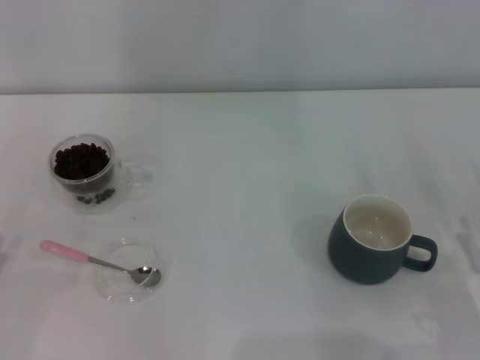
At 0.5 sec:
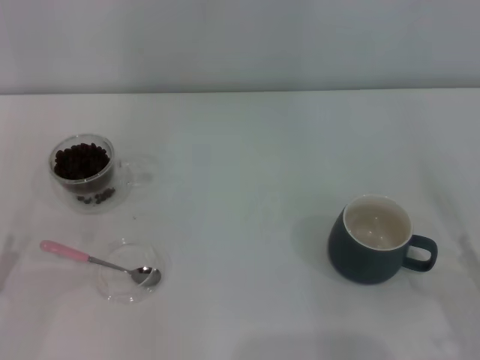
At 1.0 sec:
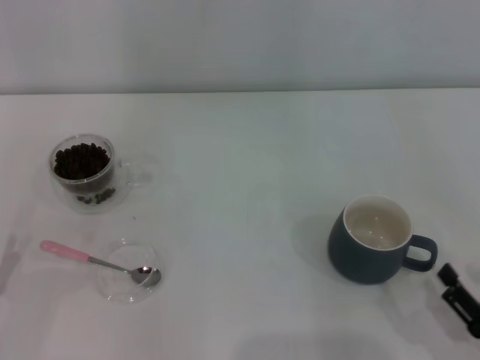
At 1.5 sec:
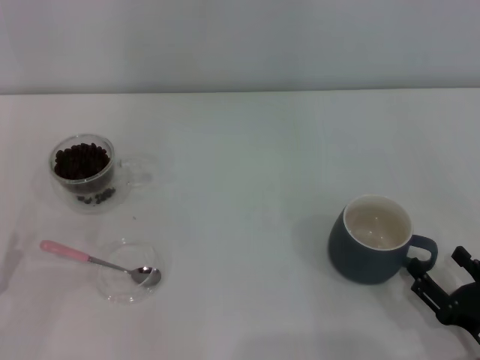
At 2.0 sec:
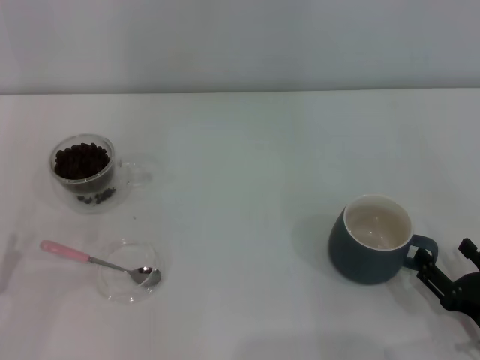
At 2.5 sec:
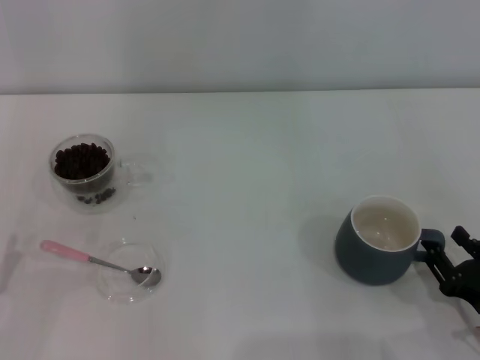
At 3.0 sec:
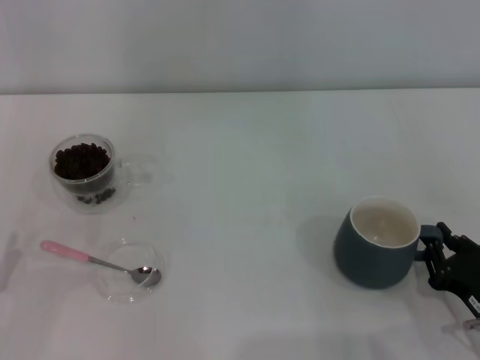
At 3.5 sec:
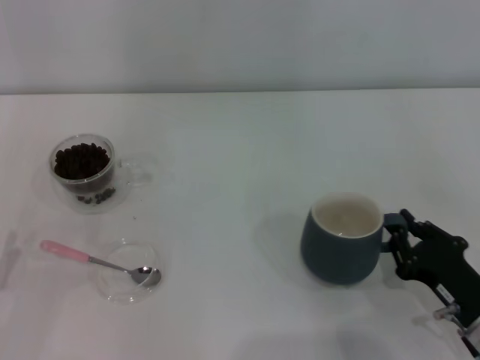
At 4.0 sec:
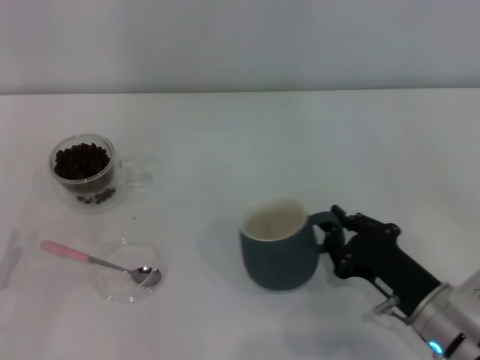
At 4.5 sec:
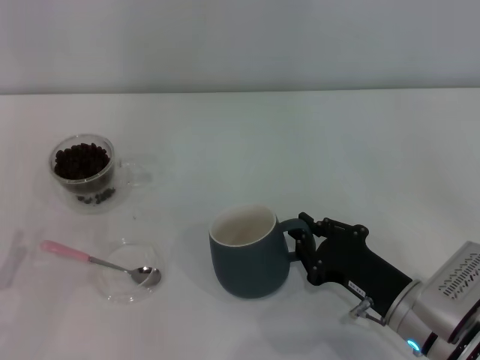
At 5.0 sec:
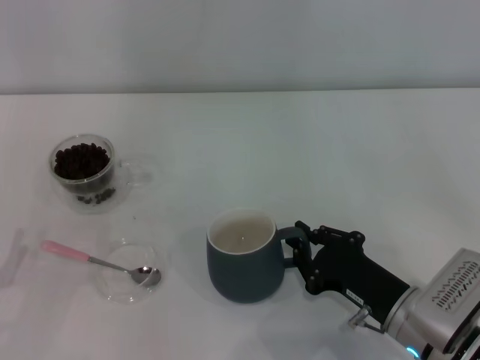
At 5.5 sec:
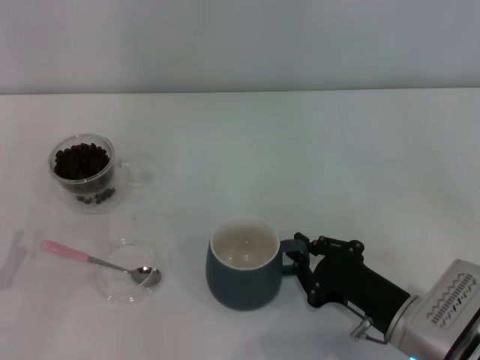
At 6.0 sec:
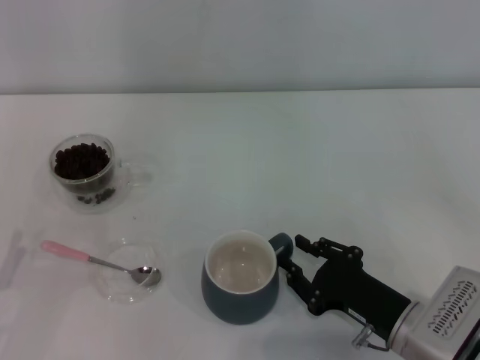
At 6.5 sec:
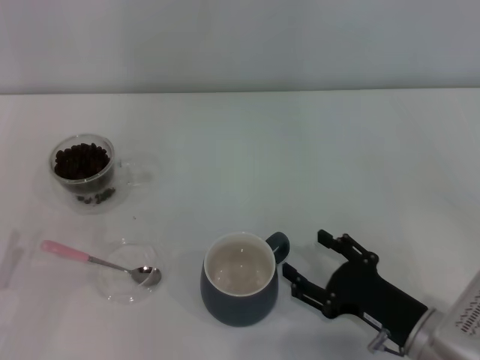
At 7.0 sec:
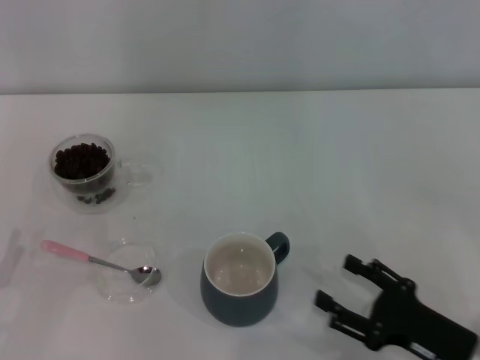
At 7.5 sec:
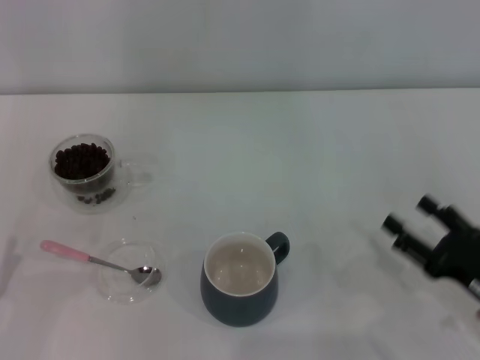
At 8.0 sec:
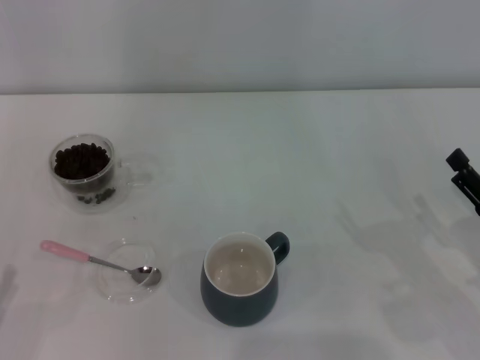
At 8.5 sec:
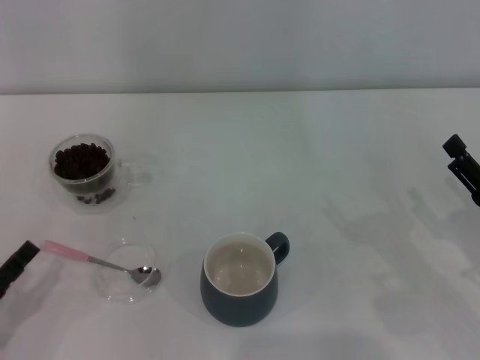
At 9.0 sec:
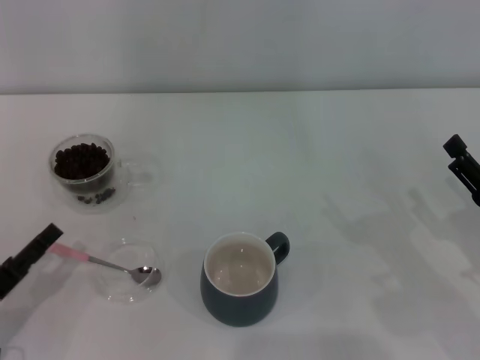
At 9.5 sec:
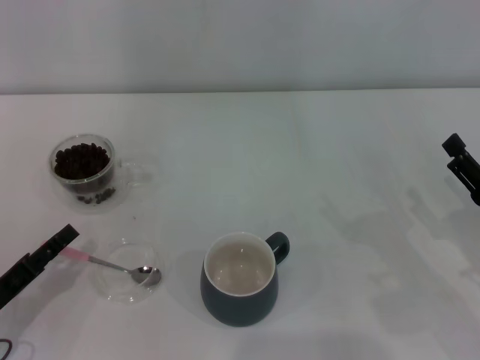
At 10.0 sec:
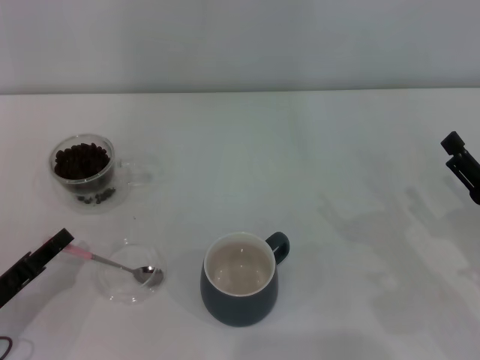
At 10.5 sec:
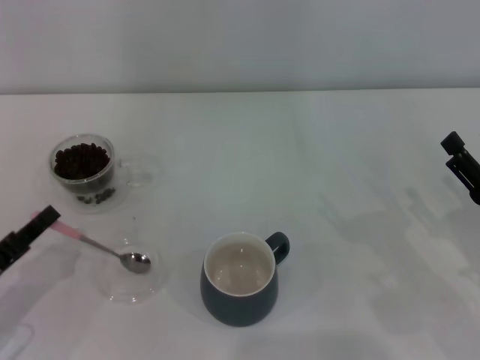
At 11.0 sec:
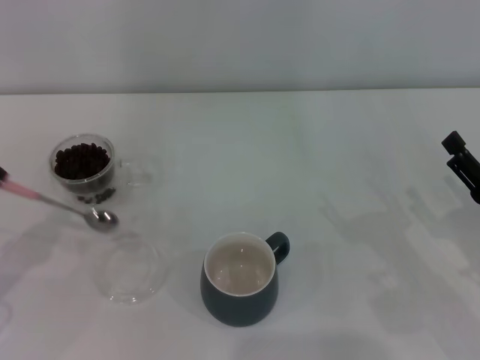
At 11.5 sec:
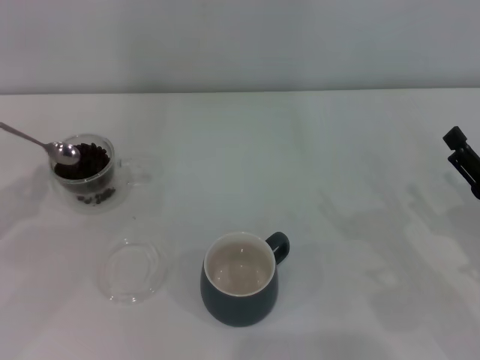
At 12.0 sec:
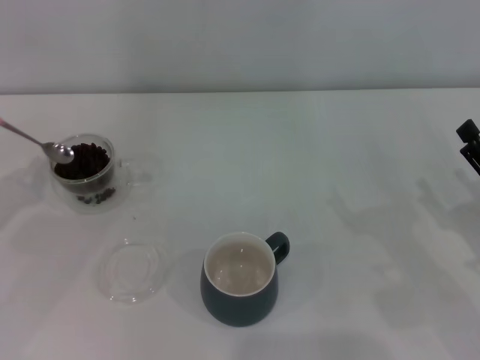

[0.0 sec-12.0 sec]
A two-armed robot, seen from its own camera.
Task of the whole recording: Use a pink spoon to take out the coffee beans from the glass and pour them into the gray cup.
Step, 7.0 sec to 10.5 sec: Pick up the spoon with the right gripper.
2.0 sec to 4.0 sec: The right gripper shifts roughly 10 cm to the left and forward, and closes.
4.0 sec to 6.0 sec: The grippers move only a little.
6.0 sec to 8.0 sec: The right gripper travels to the right by approximately 15 cm, and opens its fingers.
8.0 sec to 10.0 sec: The left gripper shifts about 10 cm forward, and closes.
10.0 sec to 12.0 sec: The left gripper shifts about 15 cm upward, forward and to the left, and closes its fingers.

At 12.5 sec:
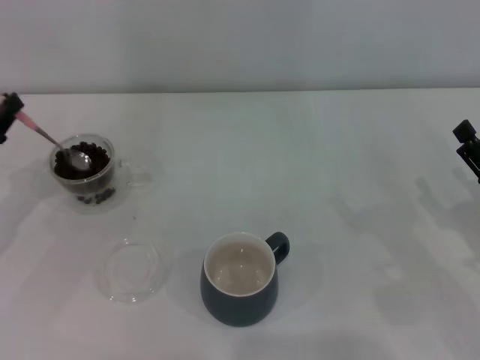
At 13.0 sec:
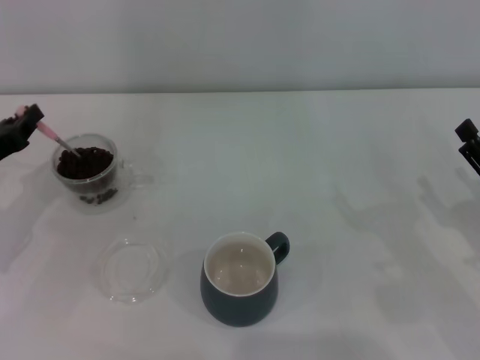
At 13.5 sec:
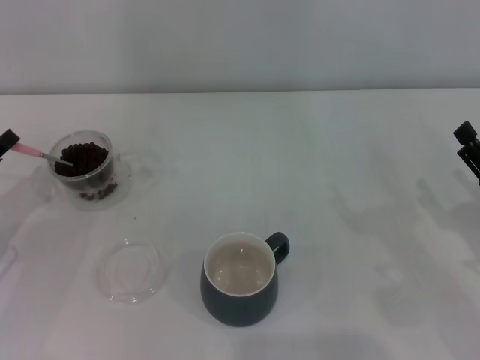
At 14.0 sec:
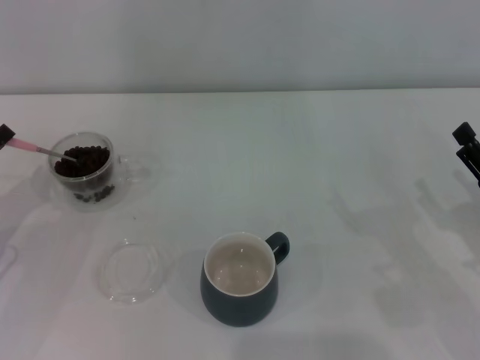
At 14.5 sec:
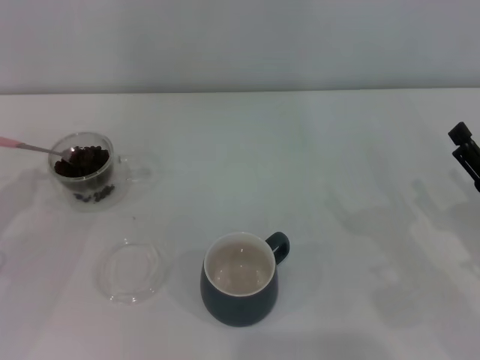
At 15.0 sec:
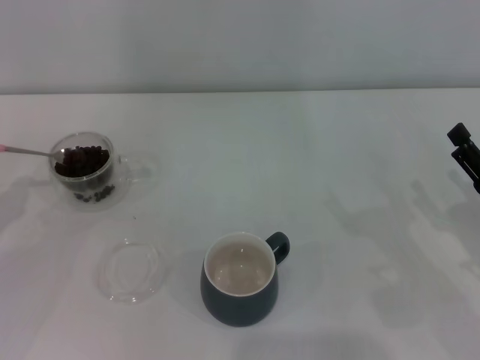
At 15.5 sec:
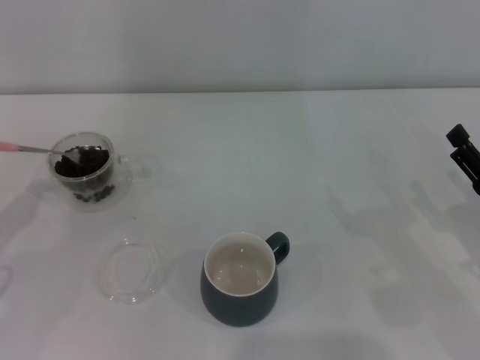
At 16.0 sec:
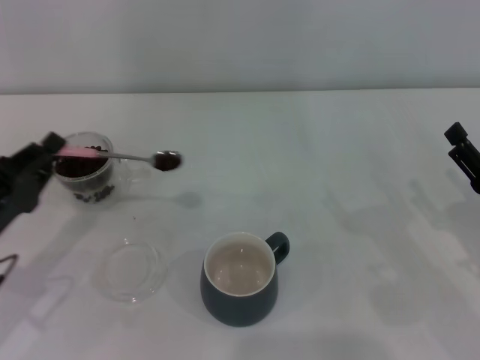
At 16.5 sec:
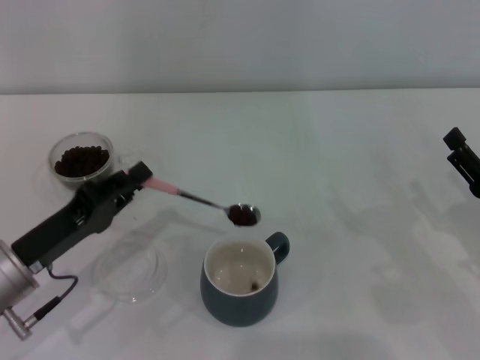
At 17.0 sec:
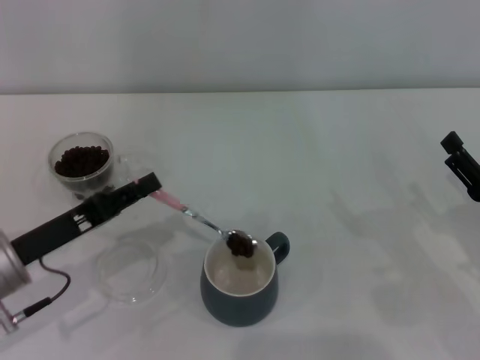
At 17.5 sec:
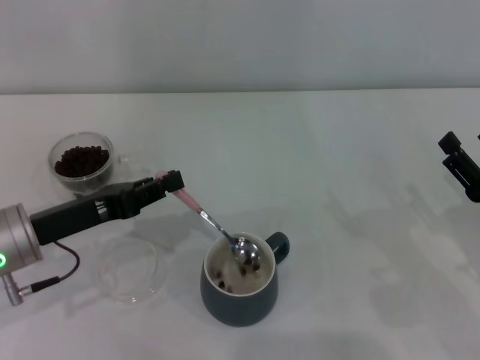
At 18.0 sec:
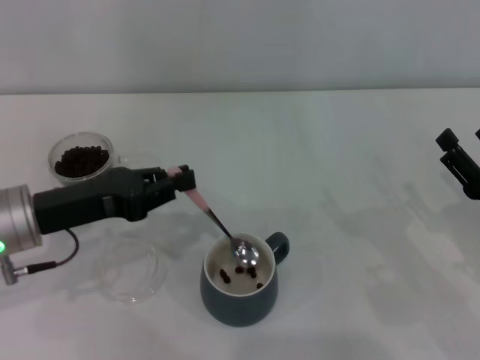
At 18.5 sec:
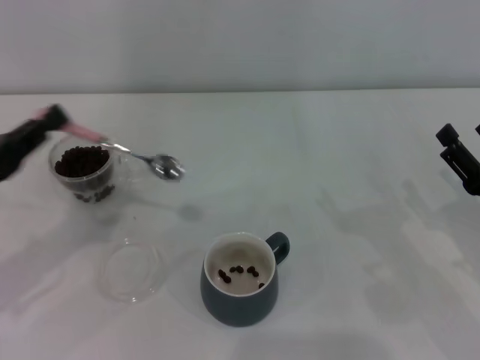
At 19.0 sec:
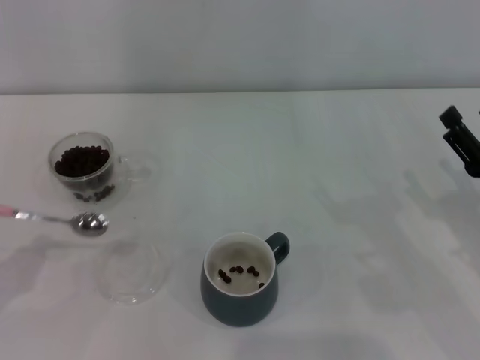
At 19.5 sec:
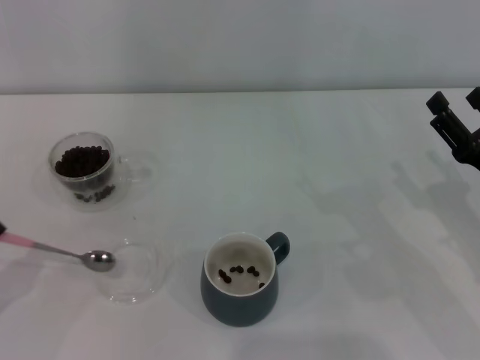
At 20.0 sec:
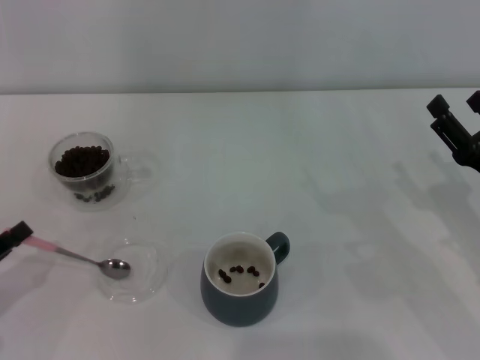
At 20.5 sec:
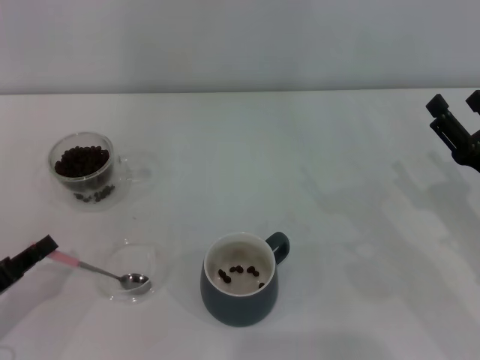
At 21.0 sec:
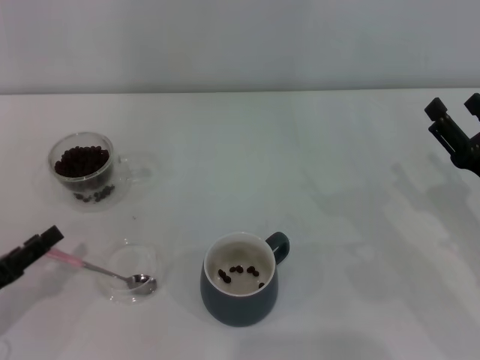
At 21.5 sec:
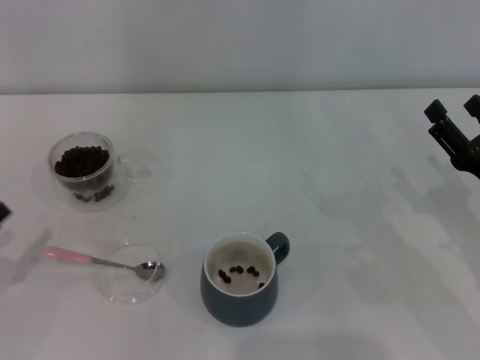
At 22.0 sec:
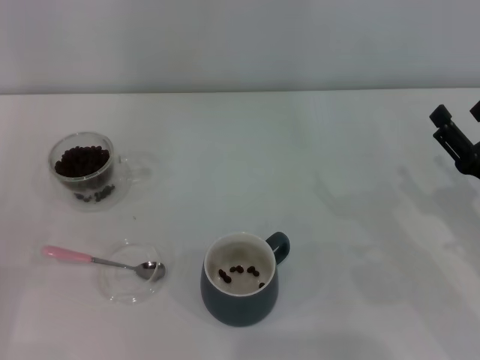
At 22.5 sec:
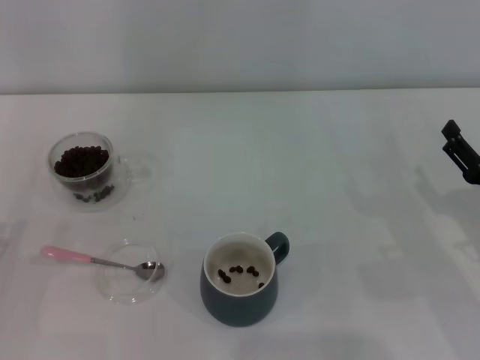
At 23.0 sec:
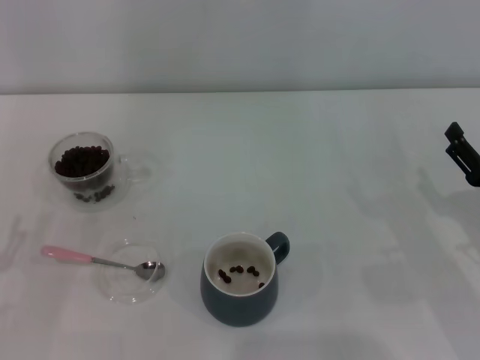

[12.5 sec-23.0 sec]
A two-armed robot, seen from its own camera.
Task of the whole recording: Use a pink spoon to take out the coffee beans from the glass and pour them into the gray cup.
Step, 18.5 sec to 21.0 sec: Place the spoon back in its original place with the right gripper.
14.5 sec to 16.5 sec: The left gripper shifts about 10 cm to the right.
16.5 sec to 19.0 sec: The left gripper moves to the left and backward, roughly 15 cm.
19.0 sec to 21.0 sec: The left gripper ends up approximately 5 cm from where it was, and opens up.
21.0 sec to 23.0 sec: The left gripper opens its fingers.

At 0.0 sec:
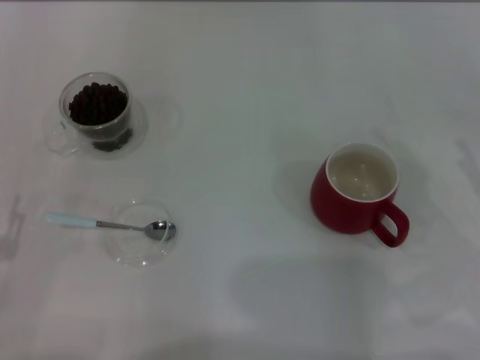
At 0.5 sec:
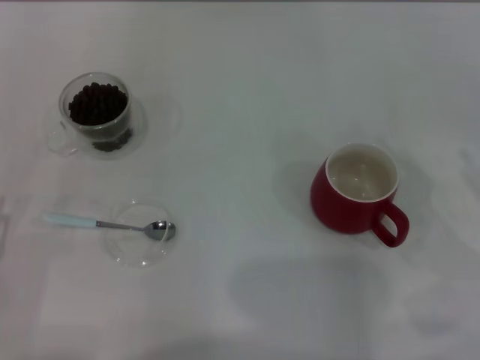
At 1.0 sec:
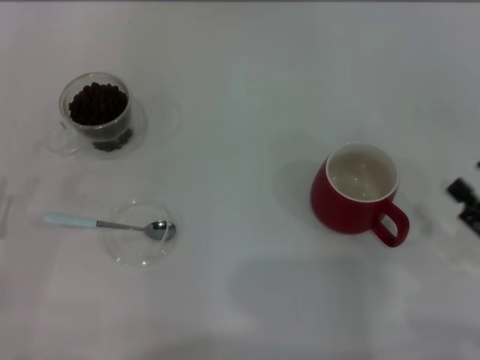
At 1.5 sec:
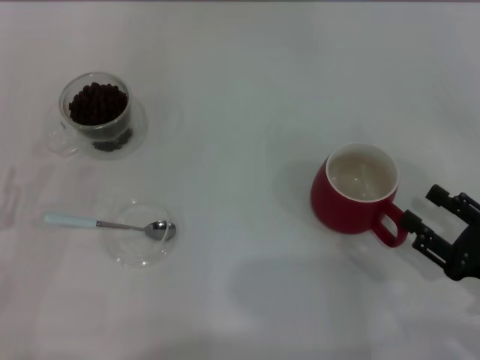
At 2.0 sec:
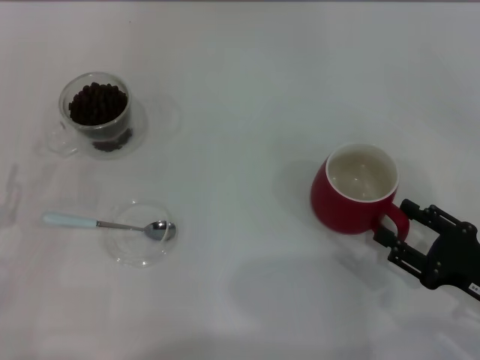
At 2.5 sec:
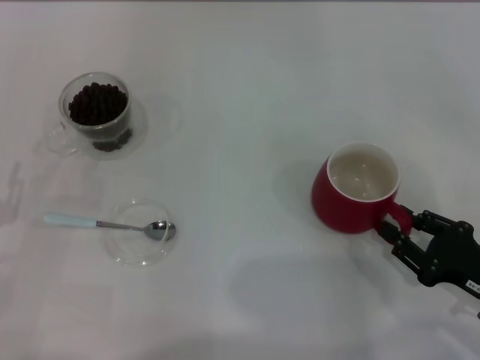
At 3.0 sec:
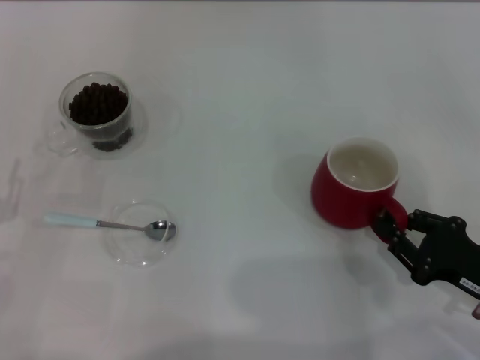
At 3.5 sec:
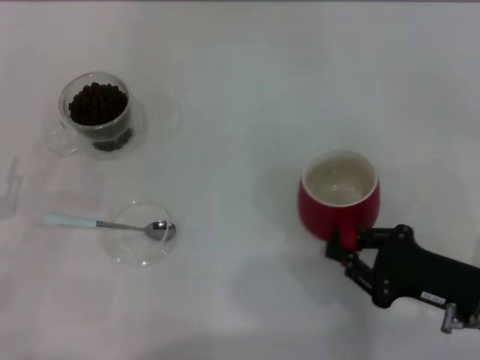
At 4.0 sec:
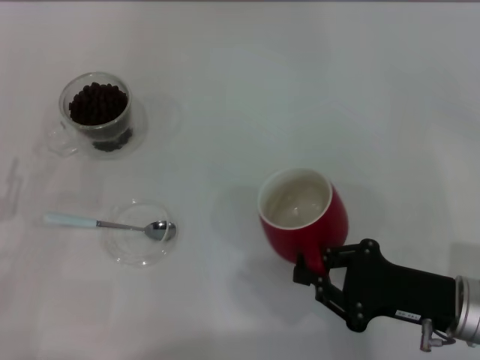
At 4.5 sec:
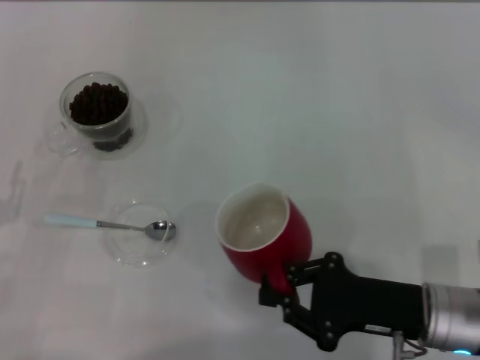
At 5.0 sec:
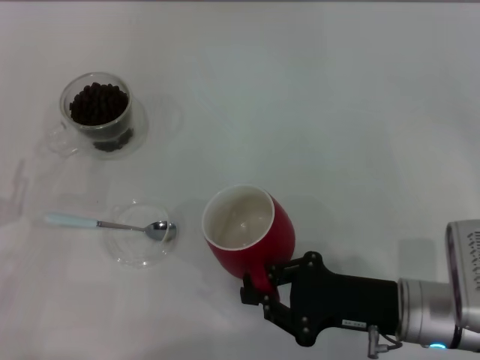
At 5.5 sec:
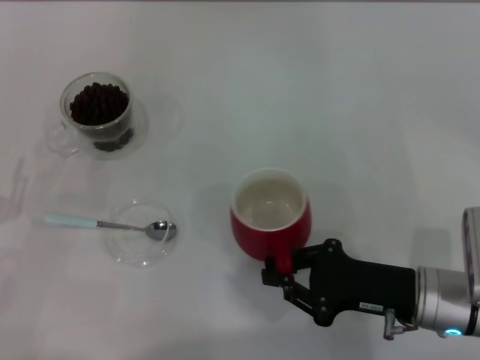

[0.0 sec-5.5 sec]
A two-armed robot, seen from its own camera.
Task of the whole recording: Use a blue spoon to take out the coffee beans from the glass and pour them into the red cup.
0.0 sec to 2.0 sec: The right gripper is displaced downward by some 5 cm.
2.0 sec to 3.5 sec: The right gripper closes.
3.5 sec to 5.5 sec: The right gripper heads to the left, covering some 5 cm.
